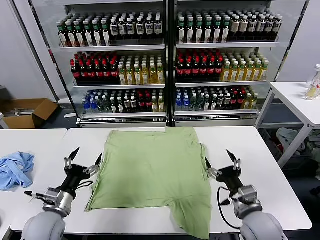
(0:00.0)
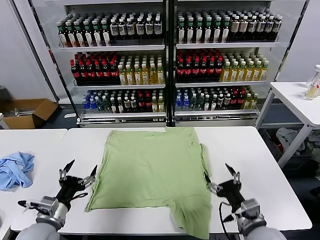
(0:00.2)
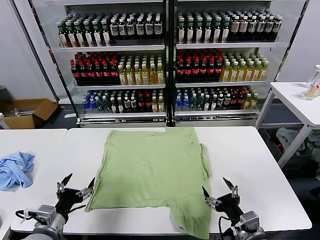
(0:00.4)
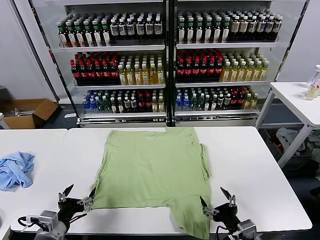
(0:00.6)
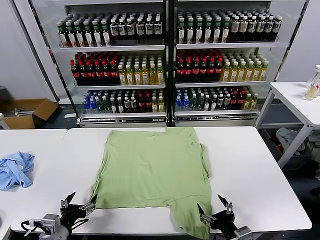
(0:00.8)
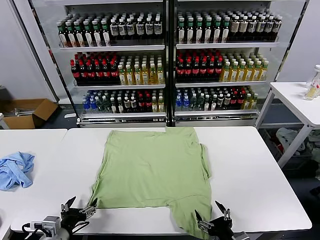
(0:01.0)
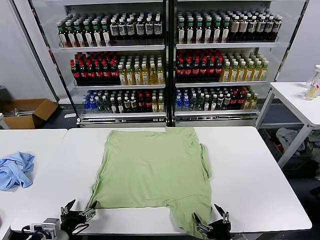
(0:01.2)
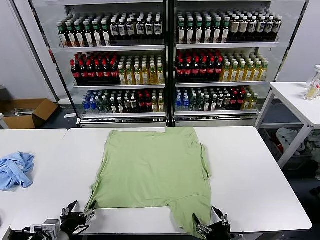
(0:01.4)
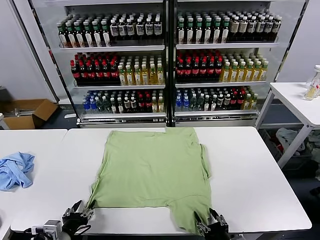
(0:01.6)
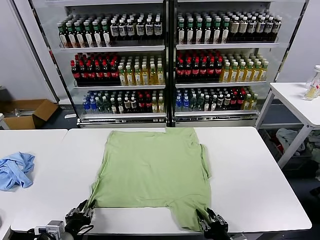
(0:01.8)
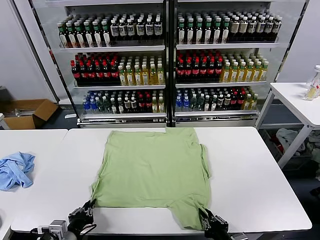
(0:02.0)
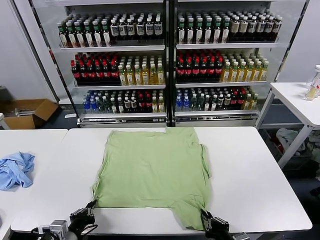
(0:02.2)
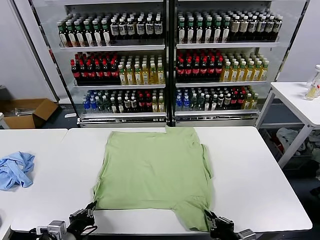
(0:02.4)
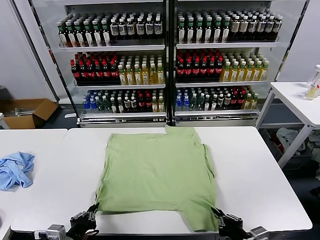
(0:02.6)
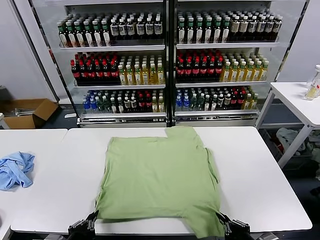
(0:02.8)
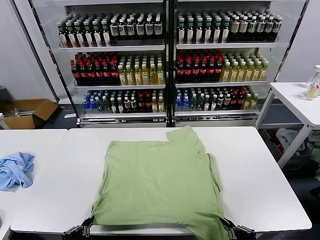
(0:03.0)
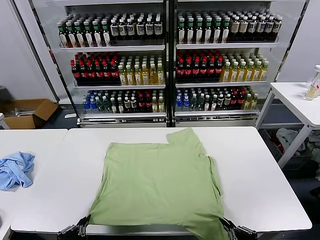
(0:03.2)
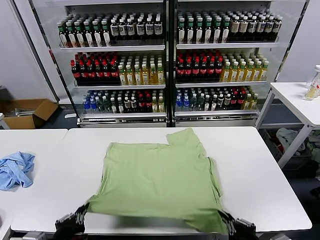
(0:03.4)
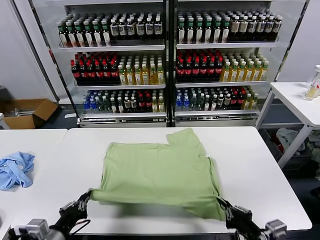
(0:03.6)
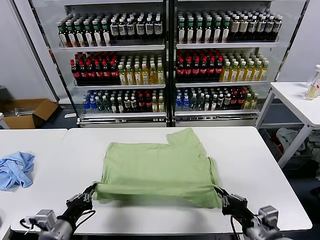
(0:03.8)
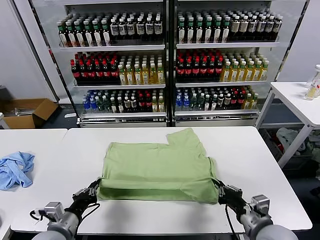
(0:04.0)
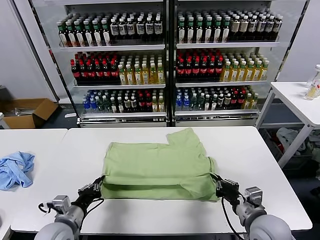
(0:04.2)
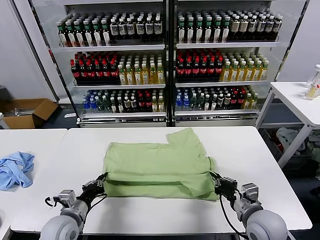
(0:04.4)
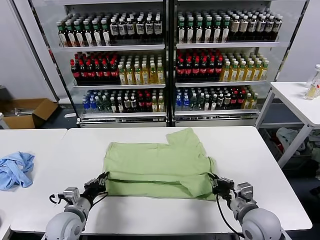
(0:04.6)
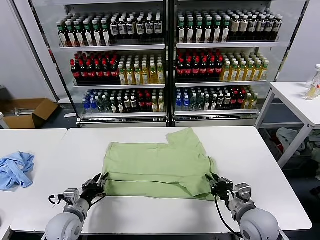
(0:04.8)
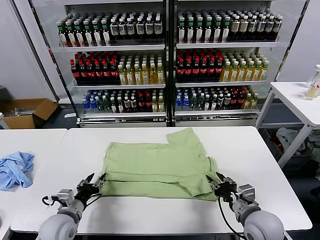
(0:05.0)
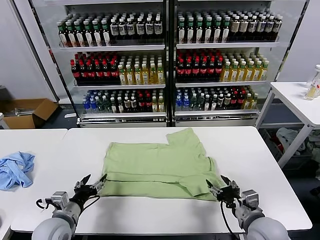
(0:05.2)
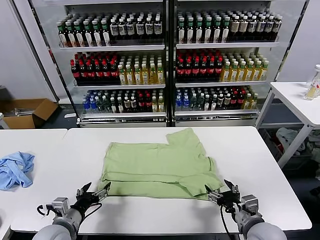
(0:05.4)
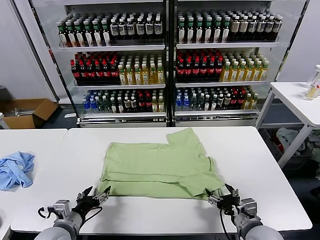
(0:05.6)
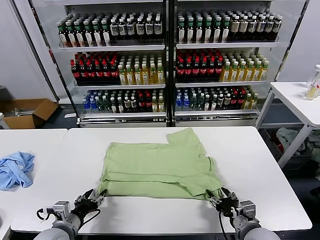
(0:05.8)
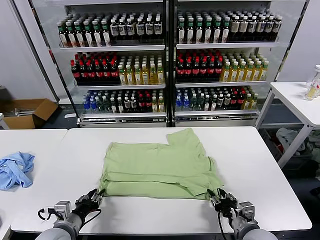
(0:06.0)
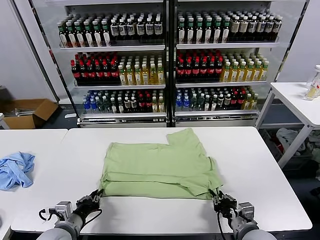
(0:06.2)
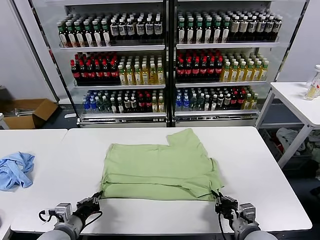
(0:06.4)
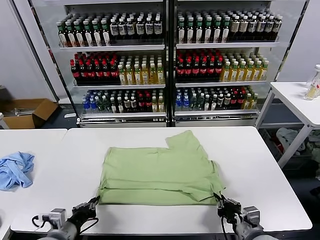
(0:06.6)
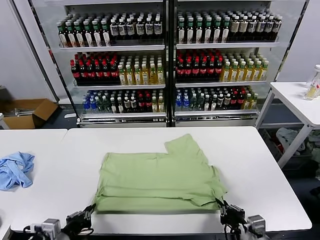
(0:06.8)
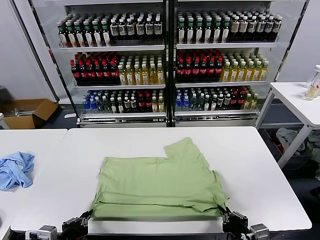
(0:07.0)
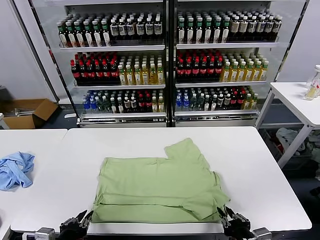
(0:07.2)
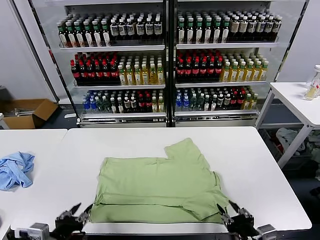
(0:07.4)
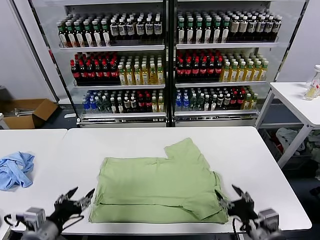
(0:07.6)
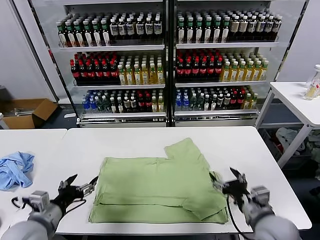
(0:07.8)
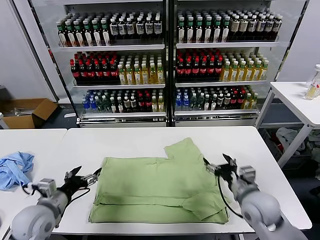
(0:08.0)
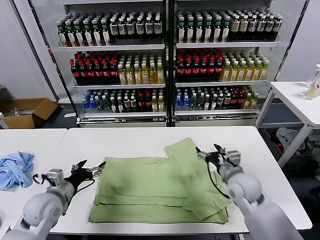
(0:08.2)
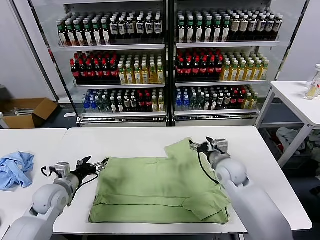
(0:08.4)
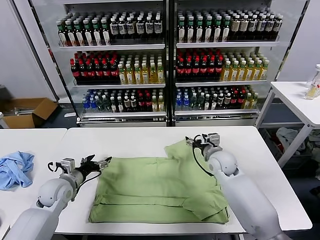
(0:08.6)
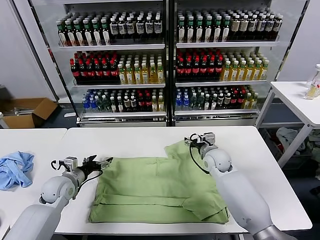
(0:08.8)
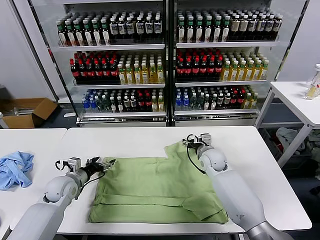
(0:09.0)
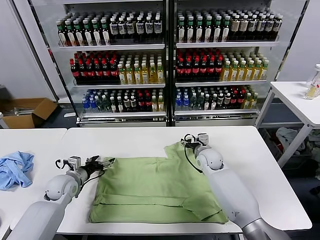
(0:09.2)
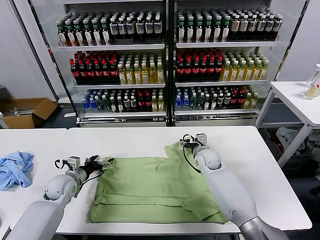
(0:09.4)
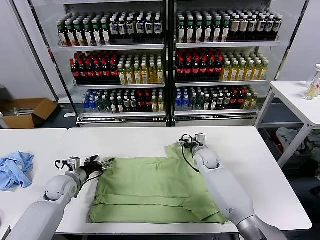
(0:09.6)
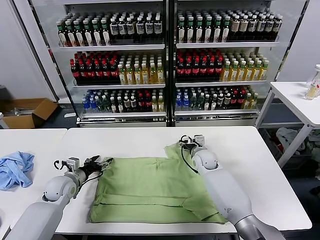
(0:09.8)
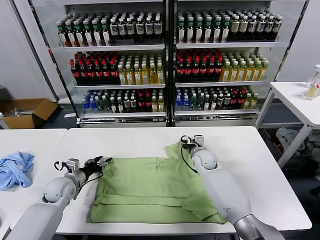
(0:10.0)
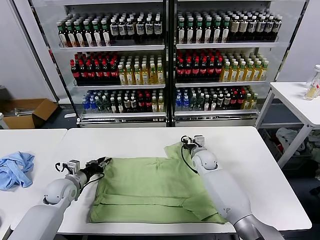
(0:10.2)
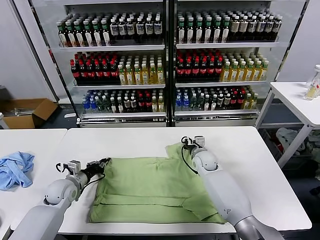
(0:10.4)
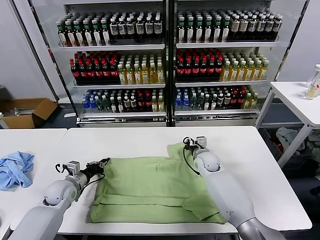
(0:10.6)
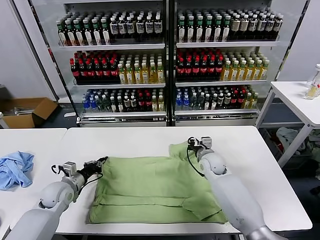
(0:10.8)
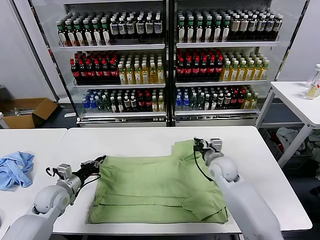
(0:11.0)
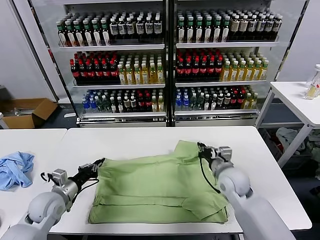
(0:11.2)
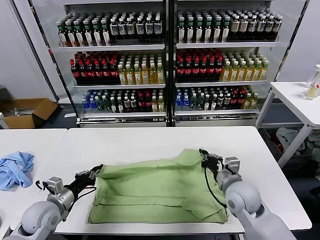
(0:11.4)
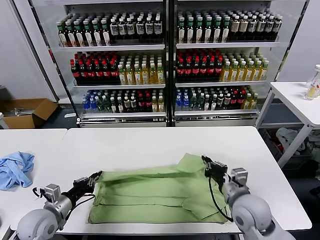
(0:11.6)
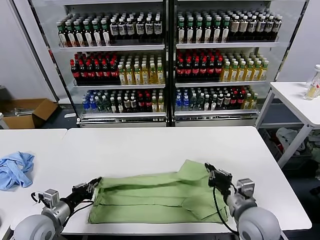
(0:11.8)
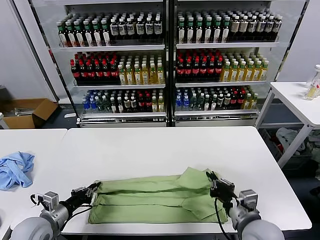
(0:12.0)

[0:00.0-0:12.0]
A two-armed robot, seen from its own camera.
Task of the whole recording: fold and organize the clothes.
Step, 0:00.0 to 0:02.4: use both grippers simultaneously to clamp the lower edge of the clothing fabric.
Step, 0:02.6 to 0:05.0: use both grippers to drag the lower edge of the fabric forward and fold it over the upper edge.
Step, 0:05.2 to 0:07.4: Drag the clothes downward with both gripper.
Step, 0:07.6 to 0:10.6: use both grippers simultaneously to clamp the upper edge of the clothing fabric.
0:01.6 to 0:03.0: The right gripper heads upward and to the right, covering approximately 10 cm, and closes. The left gripper moves backward and upward, roughly 10 cm, and closes.
0:03.0 to 0:04.4: Both grippers travel together forward, about 15 cm.
0:04.4 to 0:06.0: The left gripper opens up; the right gripper shifts by roughly 5 cm, and opens its fingers.
0:06.0 to 0:07.6: The grippers both shift upward by some 10 cm. The right gripper opens up. The left gripper opens.
0:07.6 to 0:09.0: The left gripper heads forward and downward, covering roughly 25 cm. Meanwhile the right gripper is displaced forward by some 30 cm.
0:09.0 to 0:10.4: The left gripper closes its fingers. The right gripper closes its fingers.
0:10.4 to 0:12.0: The right gripper is displaced backward by about 30 cm. Meanwhile the left gripper is displaced backward by some 15 cm.

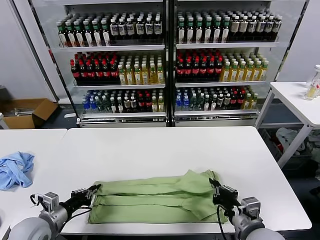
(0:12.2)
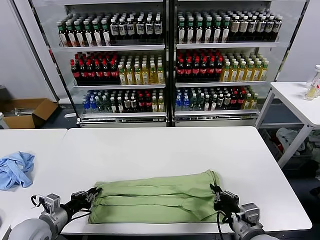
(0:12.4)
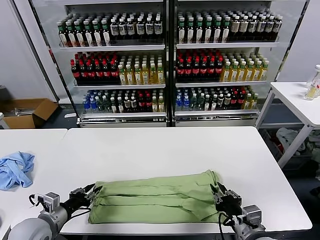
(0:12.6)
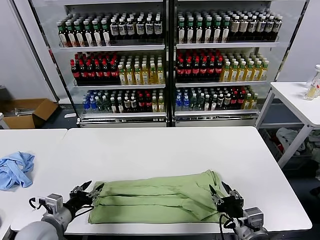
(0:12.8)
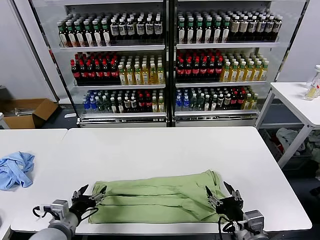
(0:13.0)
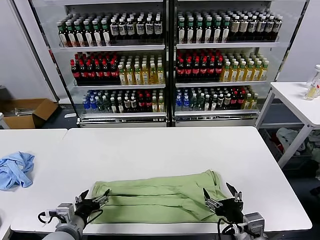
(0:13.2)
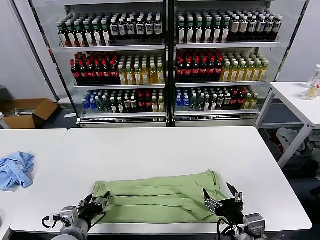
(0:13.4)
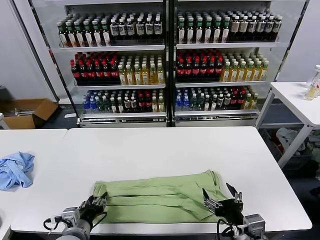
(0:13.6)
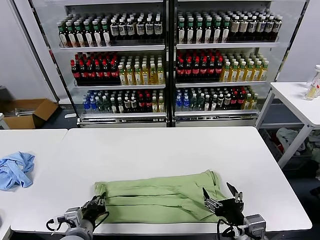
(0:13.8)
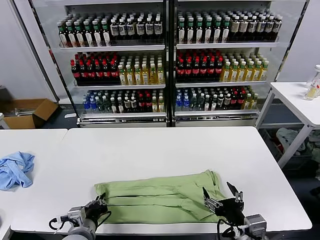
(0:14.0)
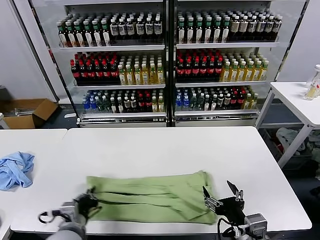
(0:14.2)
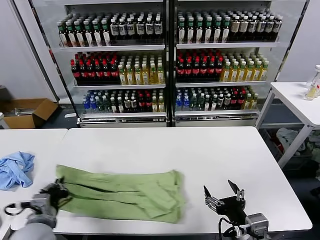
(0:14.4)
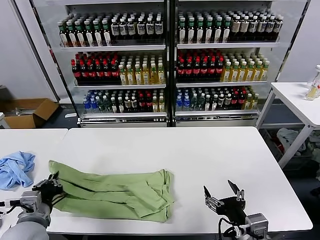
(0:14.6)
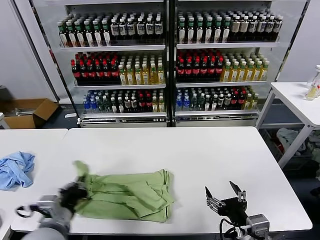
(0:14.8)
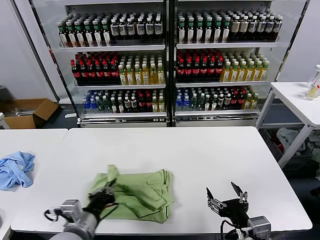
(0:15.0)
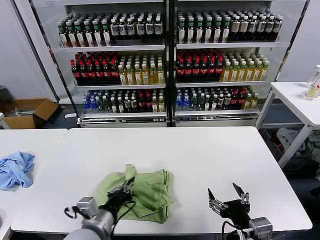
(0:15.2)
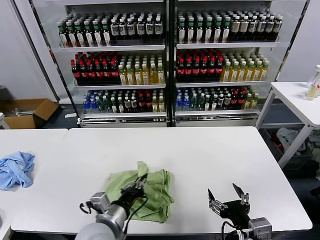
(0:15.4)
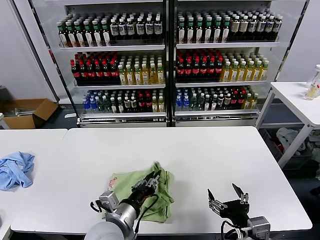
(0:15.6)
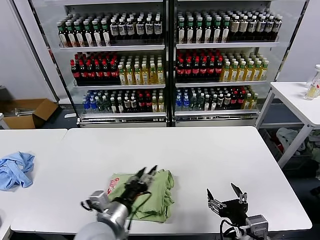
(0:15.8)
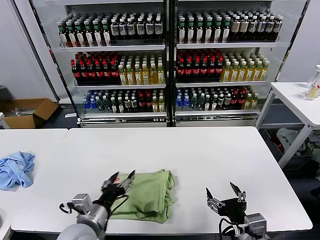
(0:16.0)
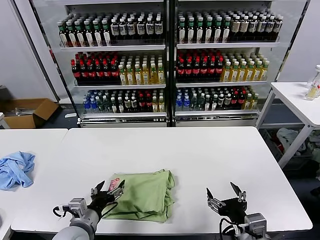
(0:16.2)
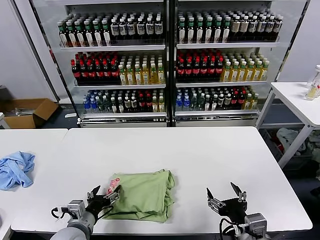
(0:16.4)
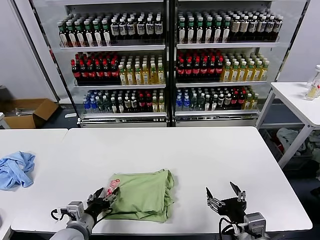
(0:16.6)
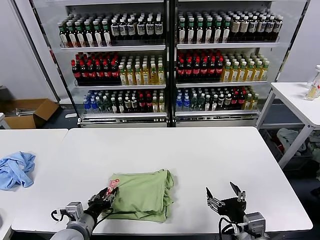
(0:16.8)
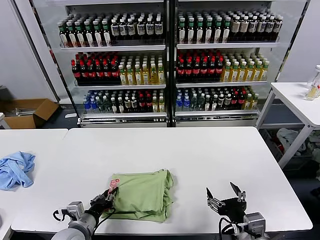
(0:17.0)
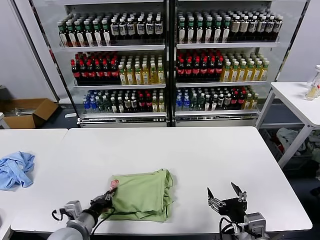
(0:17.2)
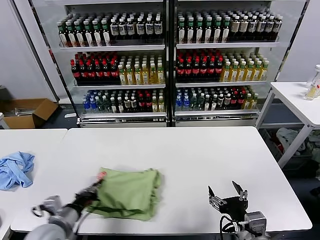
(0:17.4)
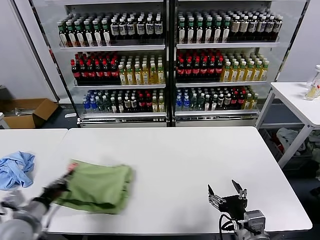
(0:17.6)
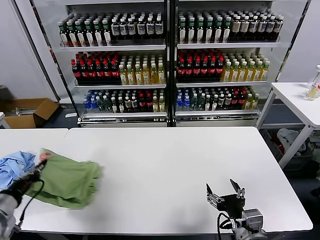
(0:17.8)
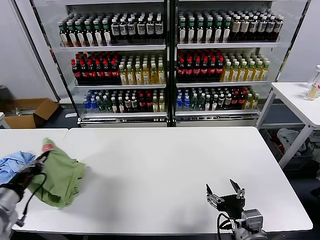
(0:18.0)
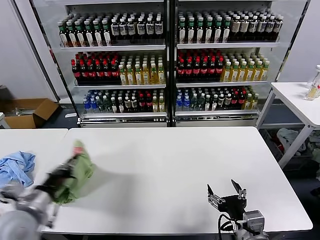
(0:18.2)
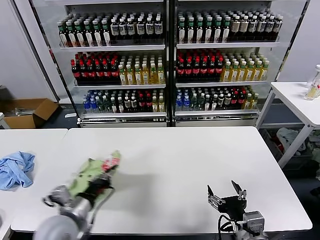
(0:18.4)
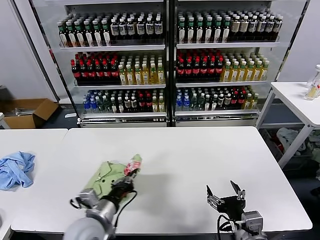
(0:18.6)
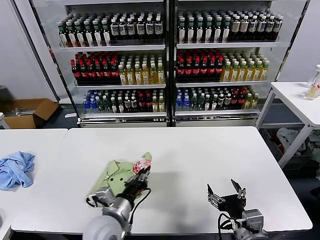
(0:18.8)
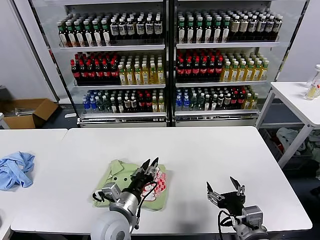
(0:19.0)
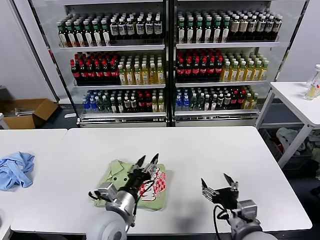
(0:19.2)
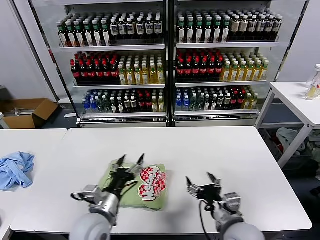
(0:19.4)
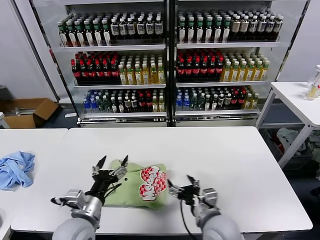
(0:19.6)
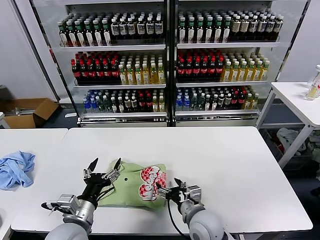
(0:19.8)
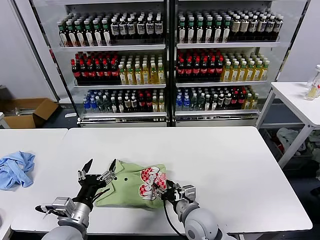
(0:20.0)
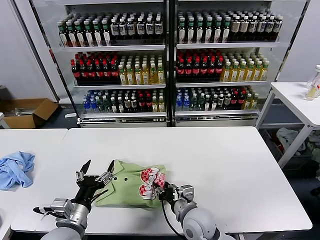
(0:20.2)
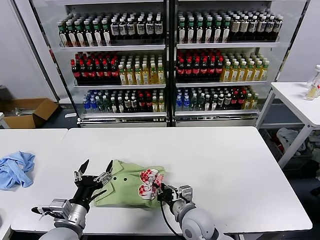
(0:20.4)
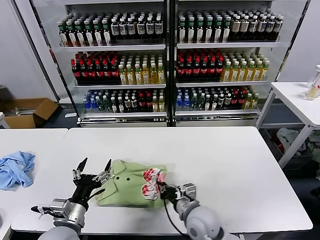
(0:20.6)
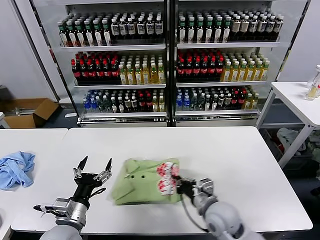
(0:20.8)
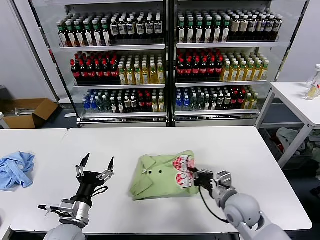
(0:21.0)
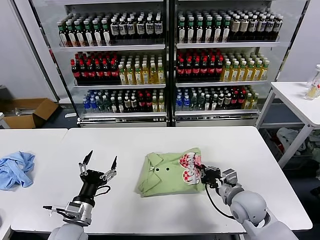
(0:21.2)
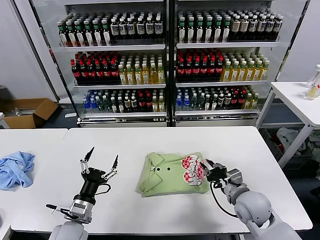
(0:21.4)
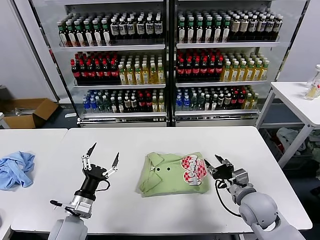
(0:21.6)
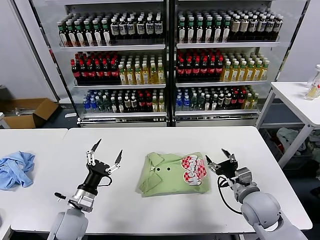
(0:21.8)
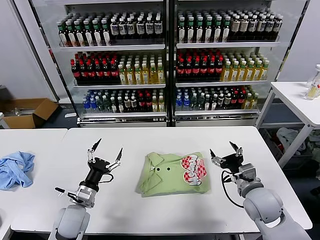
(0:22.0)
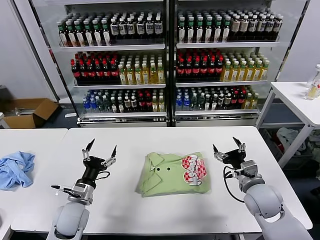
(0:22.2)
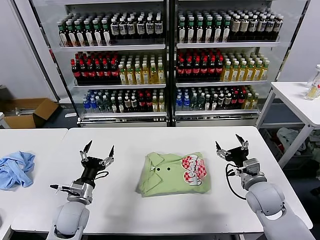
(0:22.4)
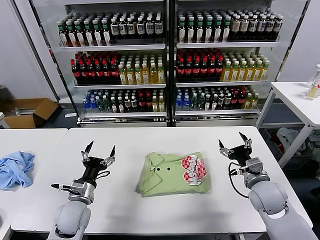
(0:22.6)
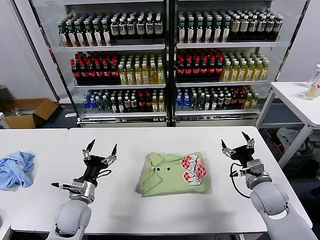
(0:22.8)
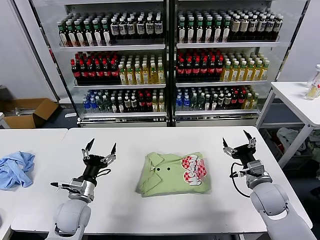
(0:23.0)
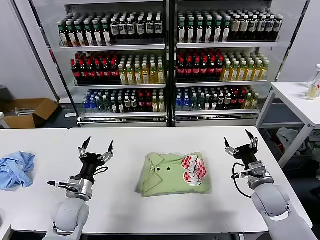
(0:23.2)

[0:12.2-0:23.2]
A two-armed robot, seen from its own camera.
Task of the whole recording: fold and organize the clothes.
Step, 0:13.0 to 0:14.0: use the left gripper to clamp the left edge of the fabric.
Step, 0:14.2 to 0:15.6: use the left gripper to drag the left edge of the fabric to the left and folds it over the right edge.
Step, 0:15.8 to 0:19.0: Flip the folded clothes over with left gripper.
Step, 0:19.2 to 0:21.4: Drag the clothes to the center of the table.
0:12.2 to 0:13.8: The right gripper ends up about 5 cm from where it was, and opens its fingers, while the left gripper is displaced to the right by approximately 10 cm, and opens and closes again.
0:13.8 to 0:15.4: The left gripper heads to the right and upward, covering some 10 cm.
0:15.4 to 0:17.0: The left gripper heads to the left and downward, covering about 15 cm, and opens, then closes once more.
0:17.0 to 0:18.4: The left gripper is displaced upward by approximately 10 cm, moves roughly 15 cm to the left and comes back, and closes.
0:18.4 to 0:20.0: The right gripper shifts approximately 20 cm forward, to the left and downward; the left gripper travels to the right and back again, roughly 15 cm each way, and opens its fingers.
0:20.0 to 0:21.6: The right gripper travels to the right by roughly 15 cm, and closes, then reopens, while the left gripper heads downward, covering some 5 cm.
0:21.6 to 0:23.2: The left gripper goes roughly 5 cm forward; the right gripper ends up about 5 cm from where it was, and opens its fingers.
